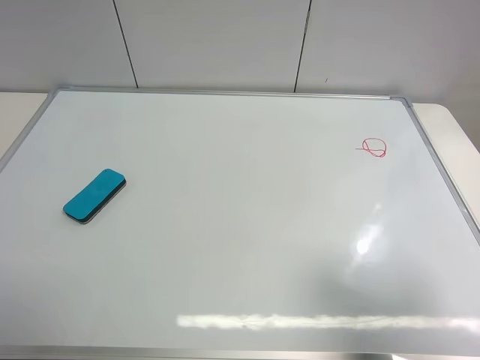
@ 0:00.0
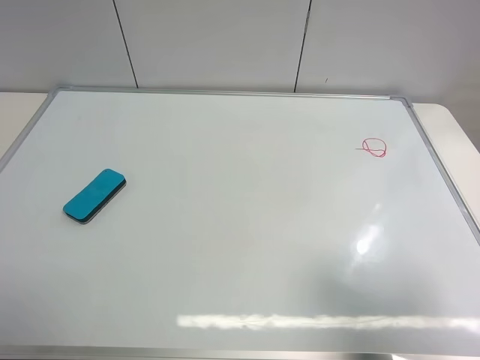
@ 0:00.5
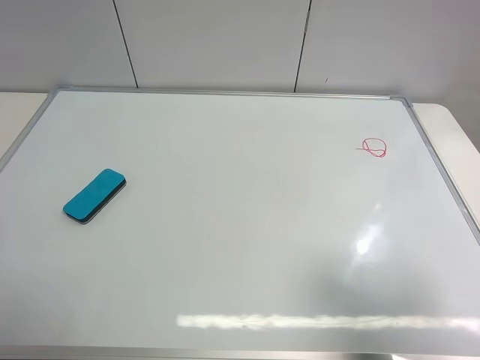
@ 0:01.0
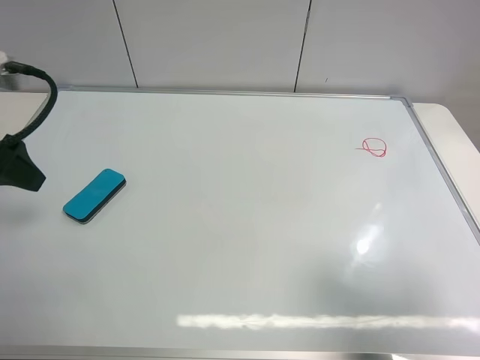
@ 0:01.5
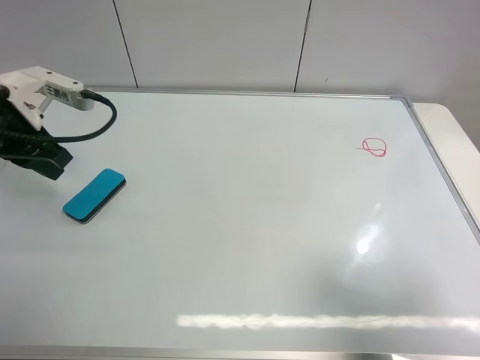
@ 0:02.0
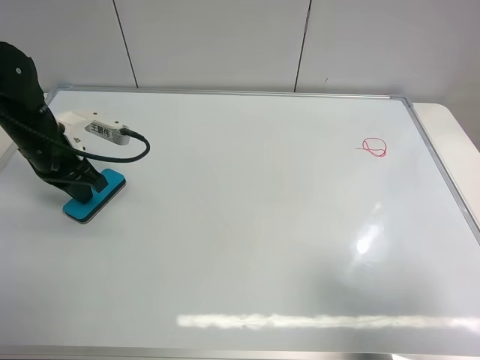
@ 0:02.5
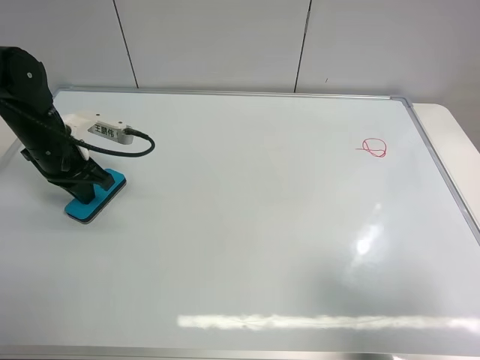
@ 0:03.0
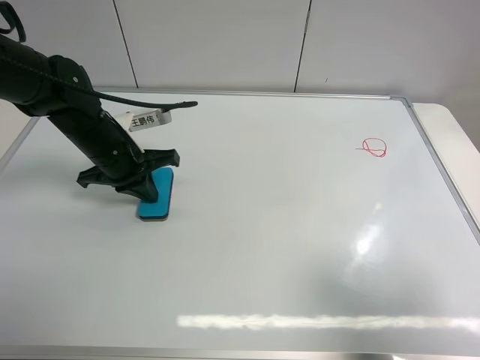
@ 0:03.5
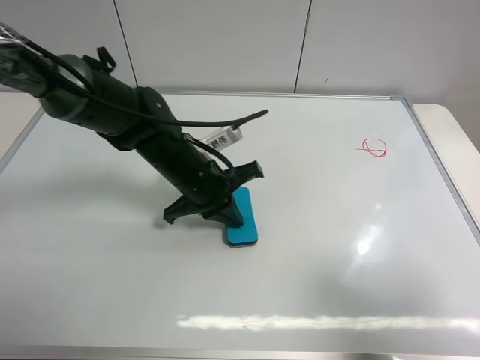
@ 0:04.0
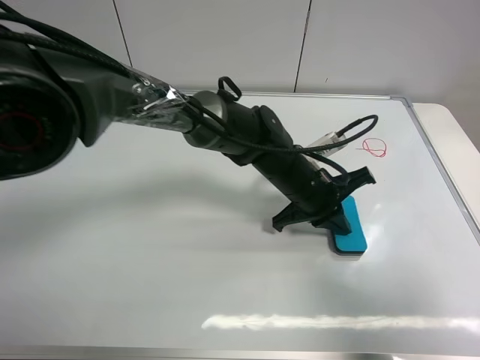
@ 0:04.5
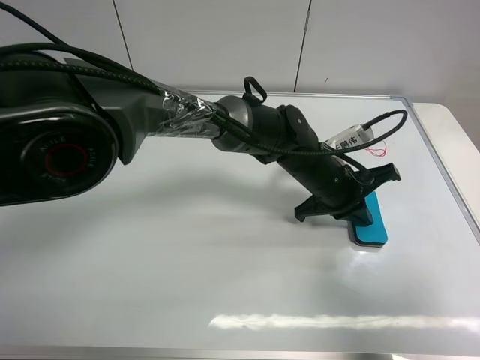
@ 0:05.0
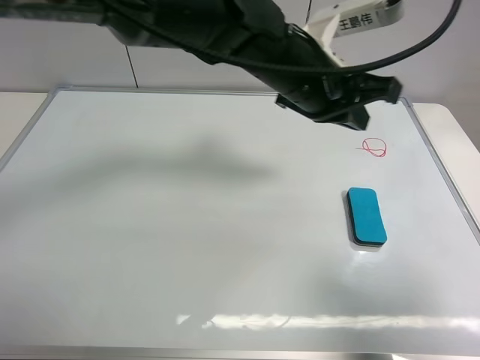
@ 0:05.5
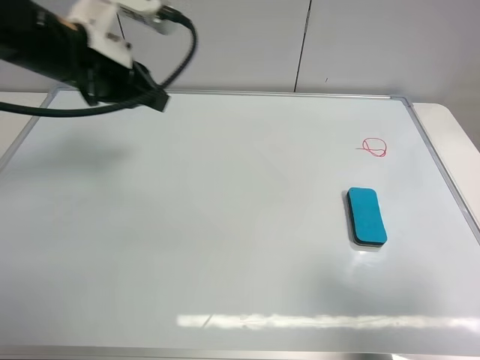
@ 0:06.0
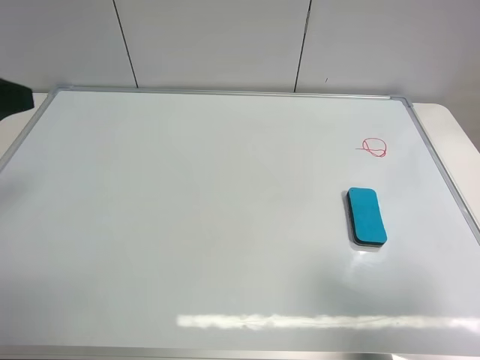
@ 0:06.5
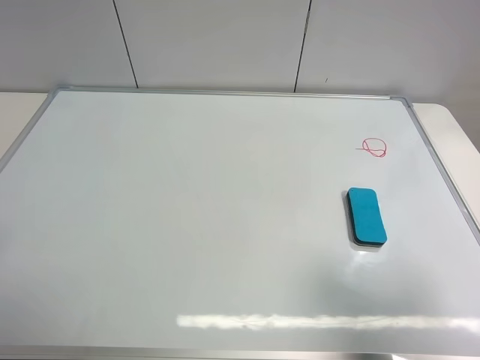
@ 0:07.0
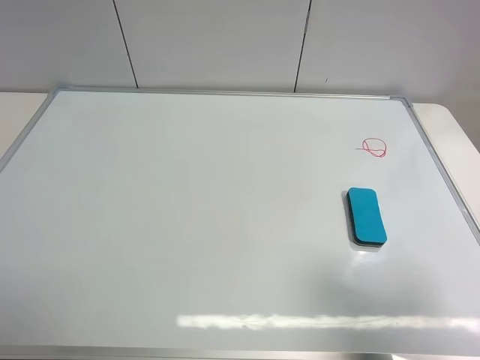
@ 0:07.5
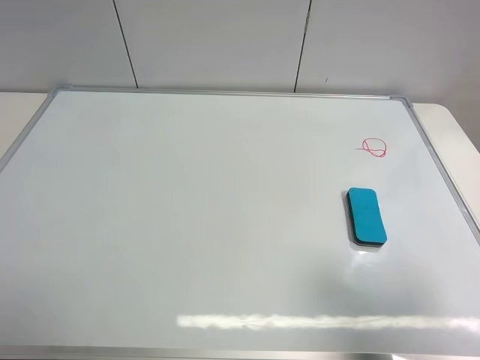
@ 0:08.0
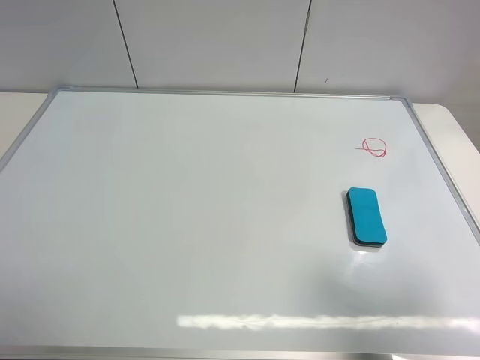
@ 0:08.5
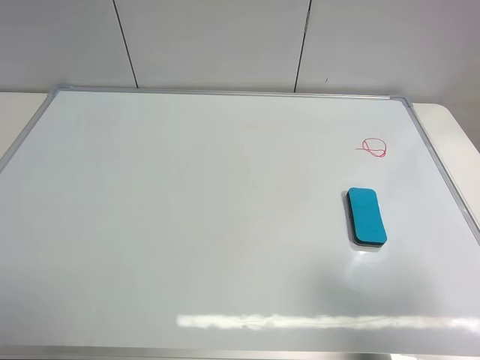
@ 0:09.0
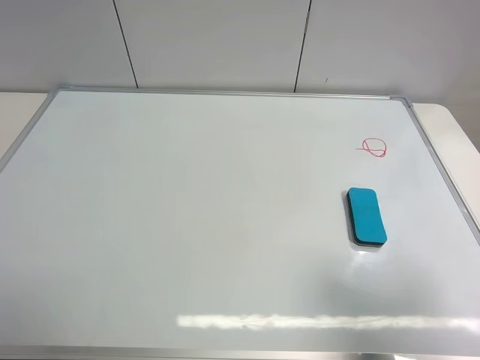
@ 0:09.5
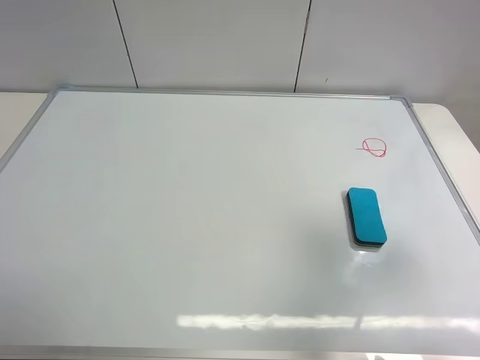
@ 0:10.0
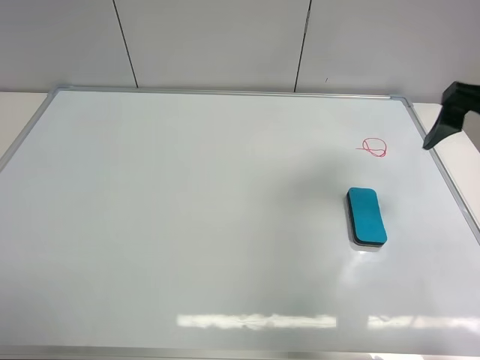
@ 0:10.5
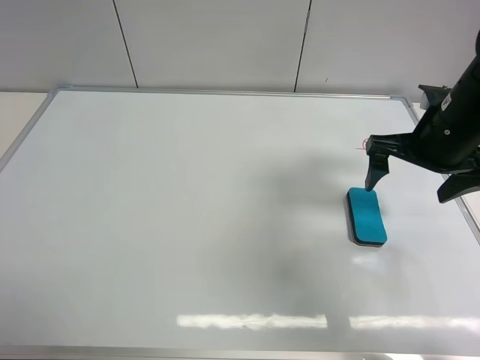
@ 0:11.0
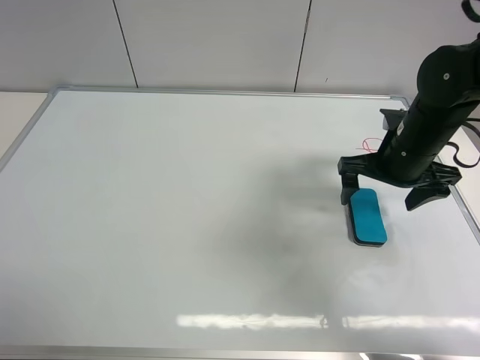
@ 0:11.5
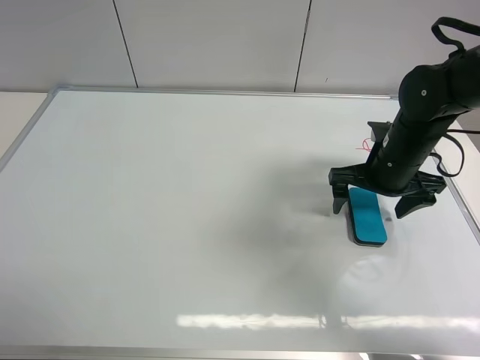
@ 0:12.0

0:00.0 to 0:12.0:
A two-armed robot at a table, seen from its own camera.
Task of the whole recording: use the left gripper to place the eraser in the right, use the right gripper to pick up the eraser, wipe the notes on the whiteboard clean, and then put it down.
Step, 0:00.0 to 0:05.0: Move the board eraser to the right of the whiteboard with left gripper.
0:00.0 to 0:02.0: The left gripper goes some 30 cm forward, and closes up.
0:02.0 to 0:04.0: The left gripper travels to the right and downward by roughly 25 cm.
0:04.0 to 0:06.0: The left gripper is displaced upward and to the left by about 20 cm.
0:06.0 to 0:08.0: The left gripper heads backward and to the left, covering about 30 cm, and opens.
0:08.0 to 0:10.0: The right gripper shifts roughly 10 cm forward and upward.
0:10.0 to 0:12.0: The right gripper goes roughly 30 cm forward, downward and to the left.

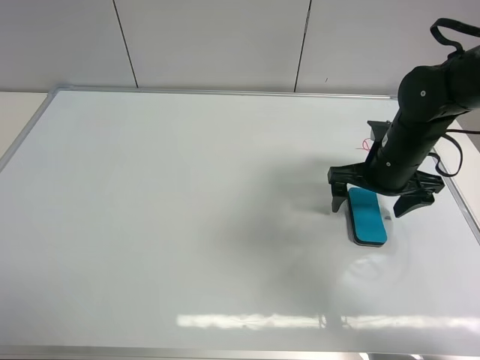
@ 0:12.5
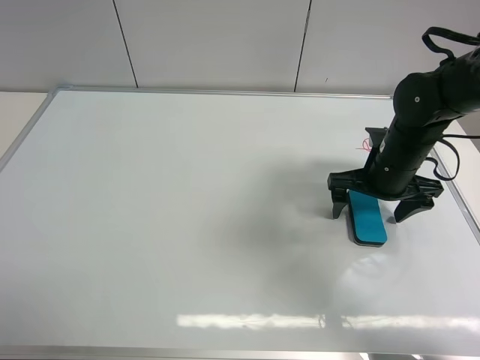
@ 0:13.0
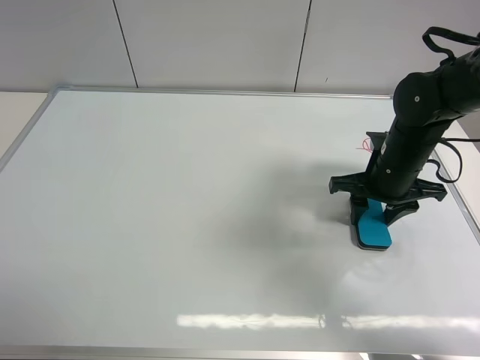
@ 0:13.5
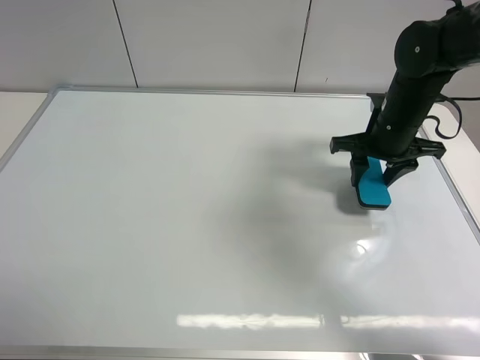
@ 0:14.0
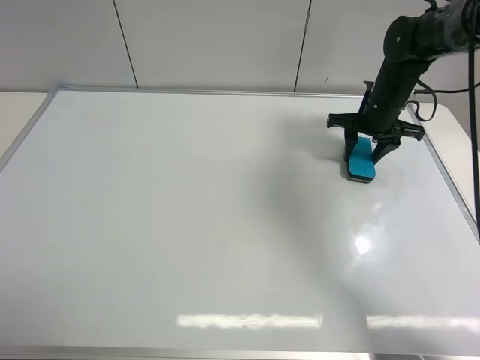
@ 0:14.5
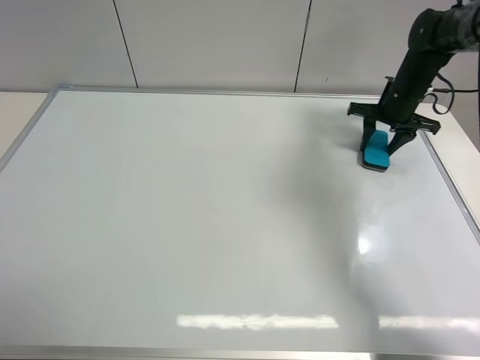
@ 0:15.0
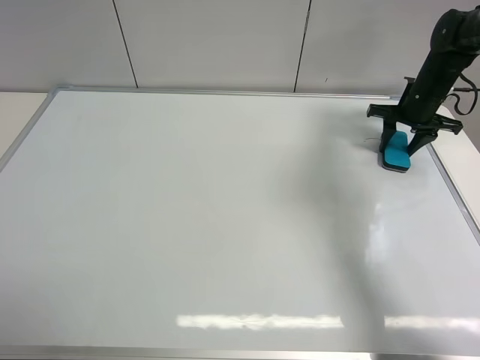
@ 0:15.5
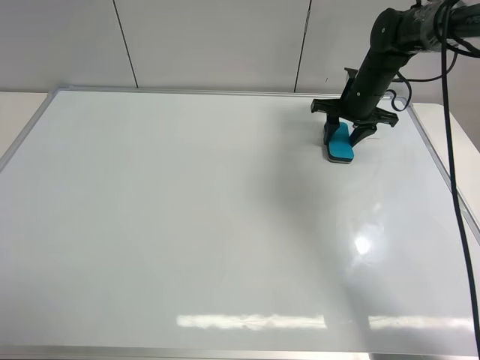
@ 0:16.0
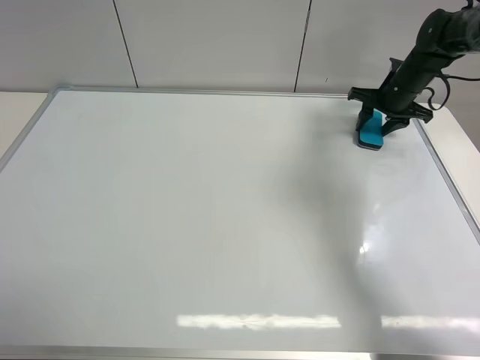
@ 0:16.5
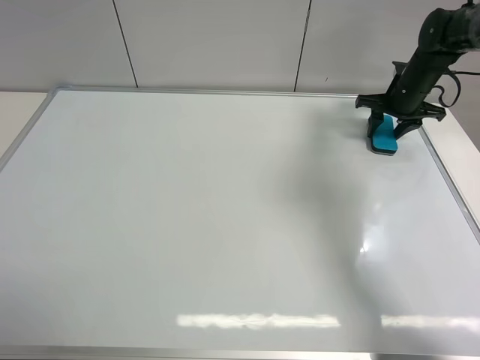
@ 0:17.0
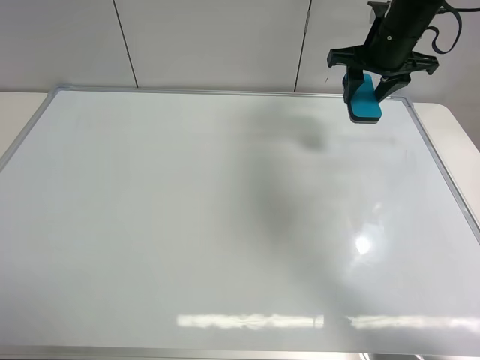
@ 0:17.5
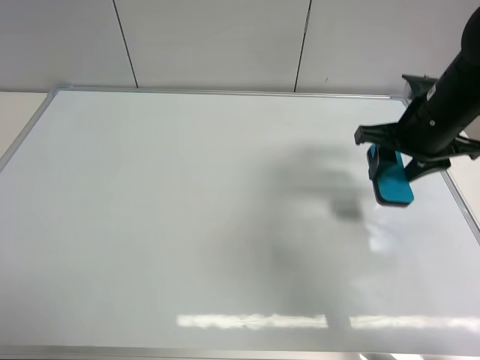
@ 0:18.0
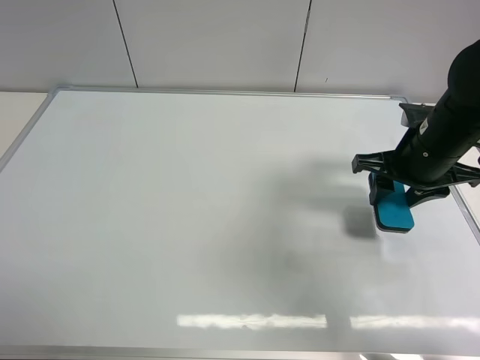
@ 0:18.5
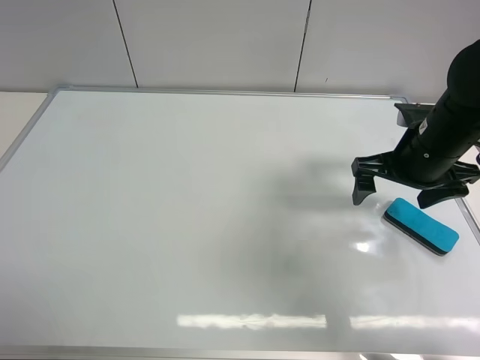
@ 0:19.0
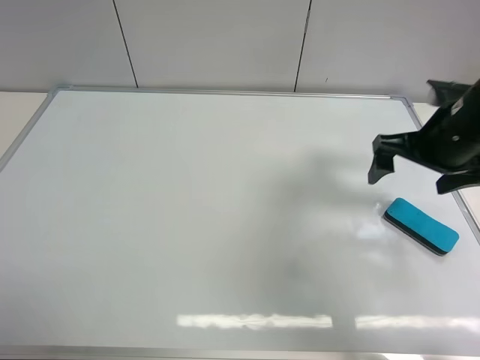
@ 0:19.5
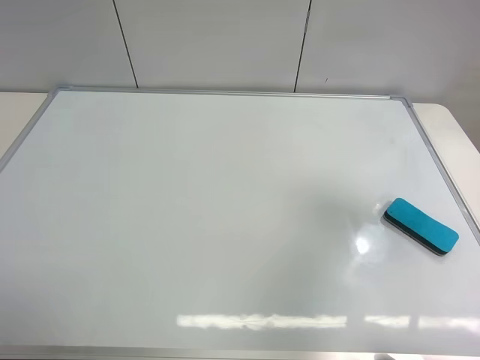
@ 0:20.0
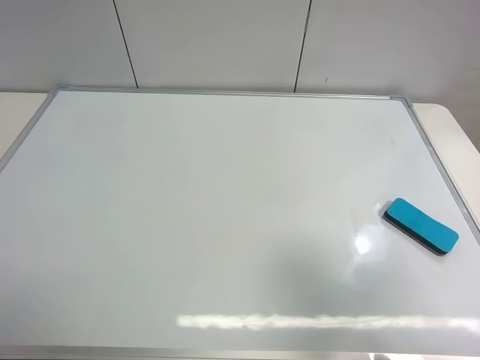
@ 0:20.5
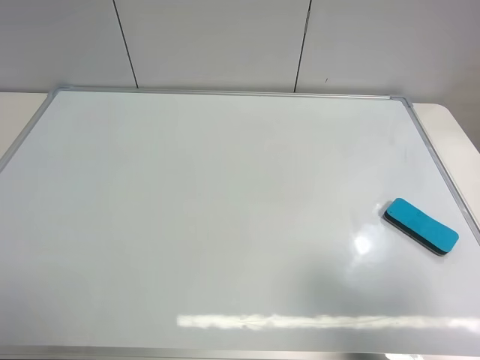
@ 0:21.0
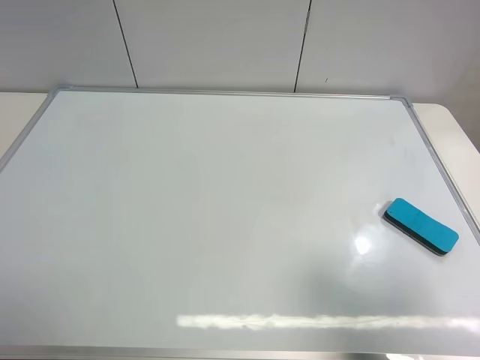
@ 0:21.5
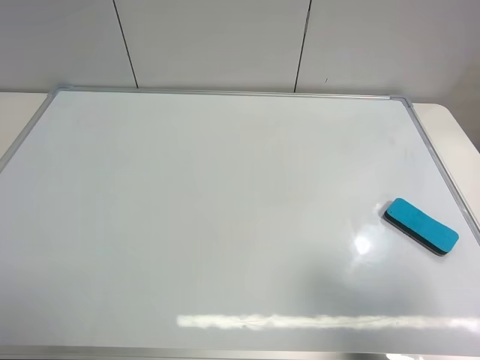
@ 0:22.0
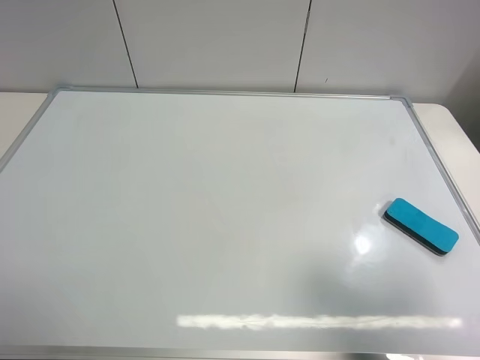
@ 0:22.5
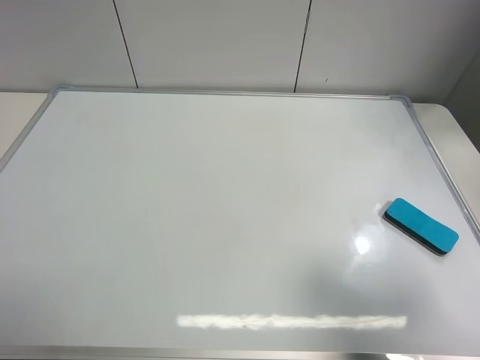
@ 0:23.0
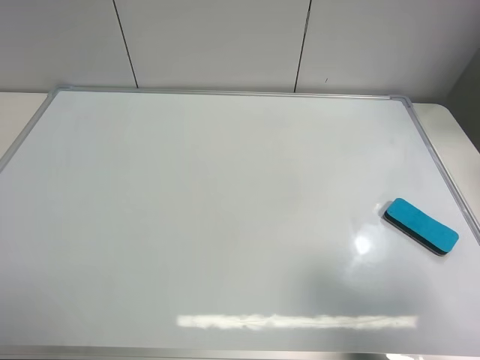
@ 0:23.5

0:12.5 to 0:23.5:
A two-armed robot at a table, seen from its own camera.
Task of the whole recording: use the left gripper to place the eraser in the right, use the right gripper to pick up the eraser, wipe the notes on the whiteboard clean, and then put it down.
Step, 0:14.0 to 0:17.0: Wipe off the writing on the board with right gripper.
Step, 0:17.5 to 0:19.0: Move the board eraser to the right of the whiteboard with right gripper.
0:12.5 to 0:14.5: The right gripper shifts approximately 15 cm forward, and closes up.
0:14.5 to 0:16.0: The right gripper moves approximately 10 cm to the right and comes back.
0:16.0 to 0:18.0: The right gripper goes some 20 cm backward.
0:18.0 to 0:20.0: The right gripper goes approximately 25 cm backward, upward and to the right, and opens up.
0:20.0 to 0:21.5: The right gripper travels backward and downward by approximately 15 cm.
0:21.5 to 0:23.5: Both grippers stay about where they are.
